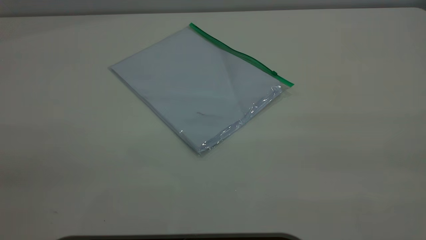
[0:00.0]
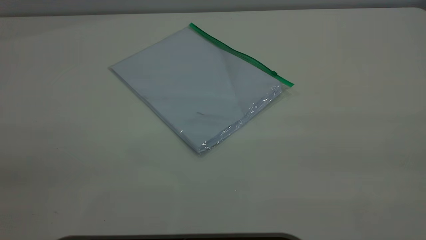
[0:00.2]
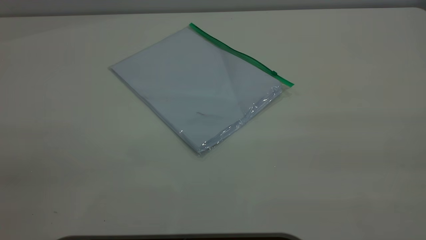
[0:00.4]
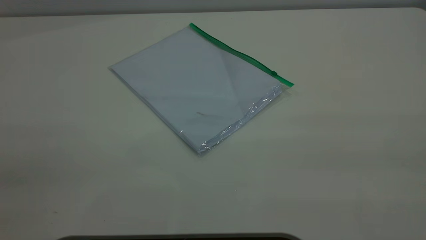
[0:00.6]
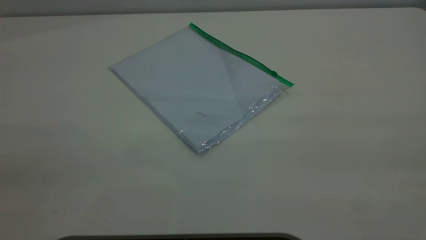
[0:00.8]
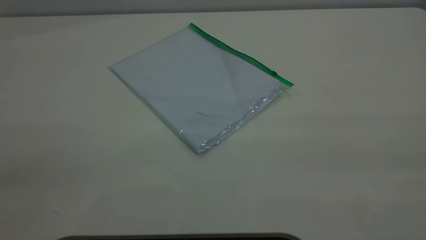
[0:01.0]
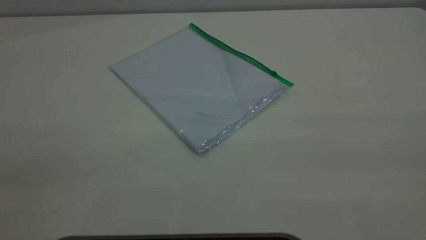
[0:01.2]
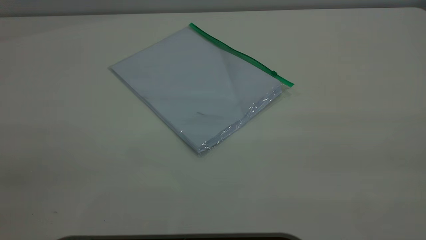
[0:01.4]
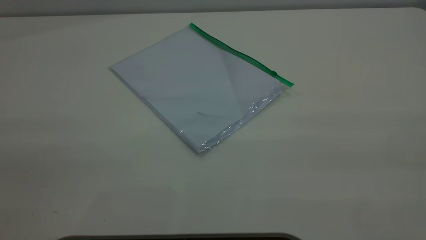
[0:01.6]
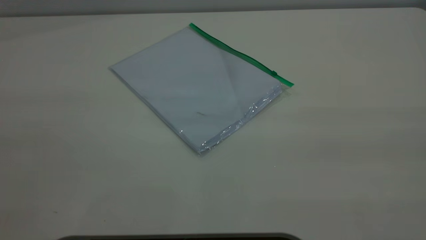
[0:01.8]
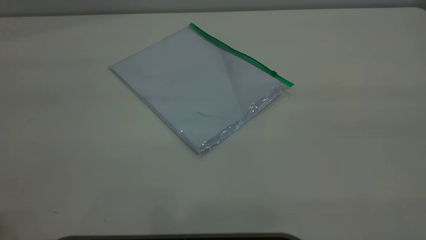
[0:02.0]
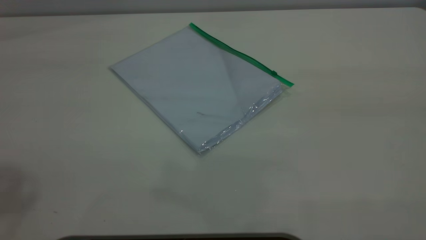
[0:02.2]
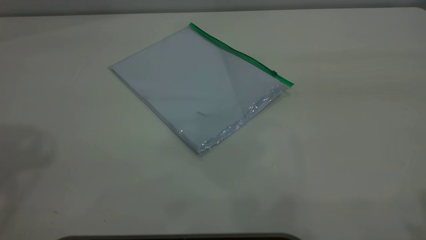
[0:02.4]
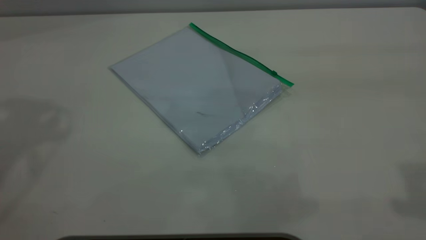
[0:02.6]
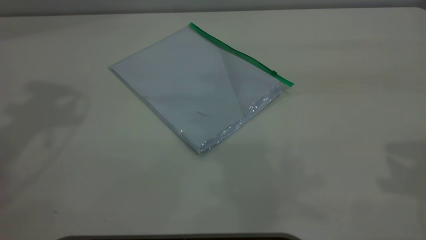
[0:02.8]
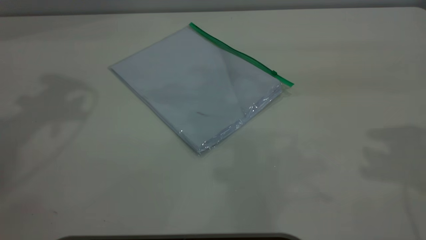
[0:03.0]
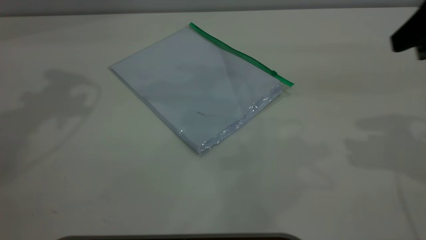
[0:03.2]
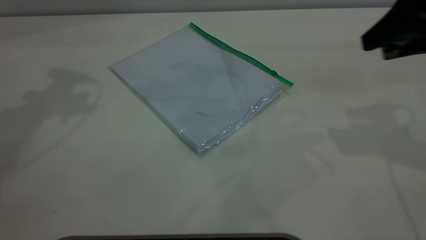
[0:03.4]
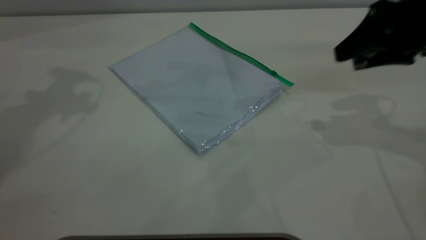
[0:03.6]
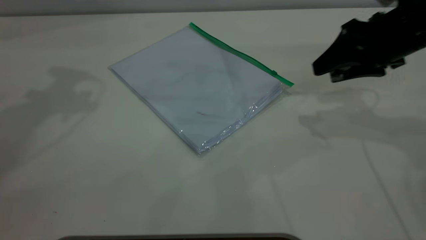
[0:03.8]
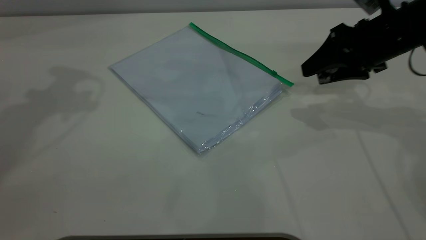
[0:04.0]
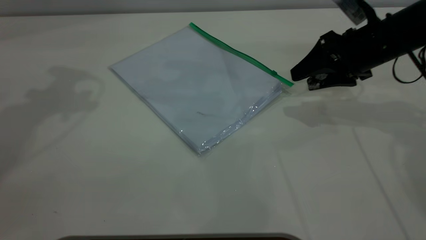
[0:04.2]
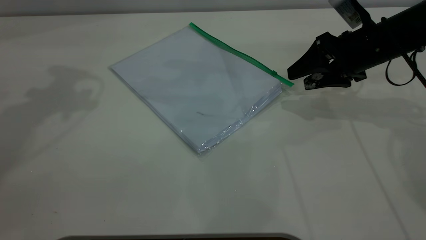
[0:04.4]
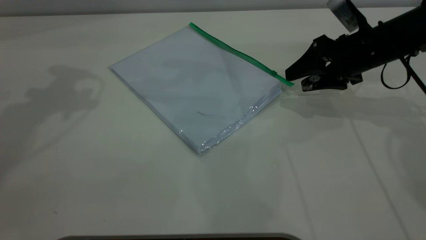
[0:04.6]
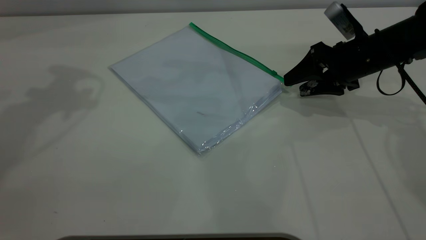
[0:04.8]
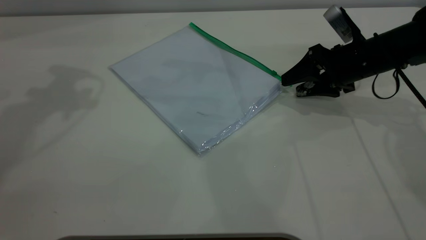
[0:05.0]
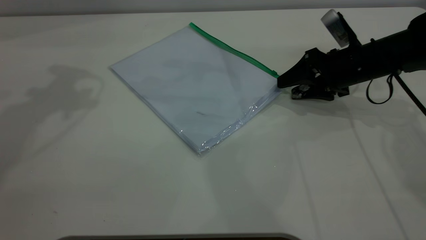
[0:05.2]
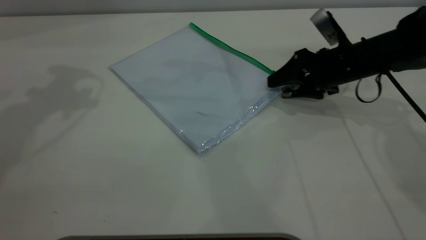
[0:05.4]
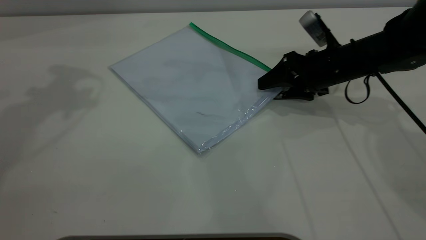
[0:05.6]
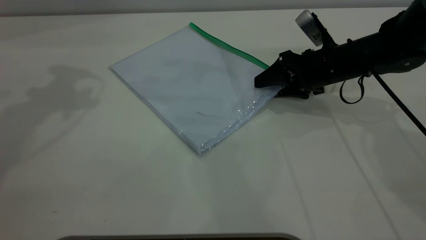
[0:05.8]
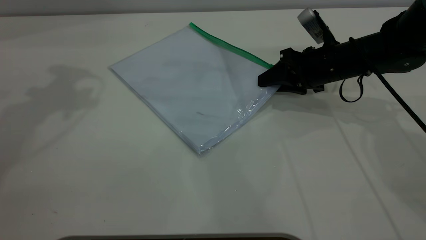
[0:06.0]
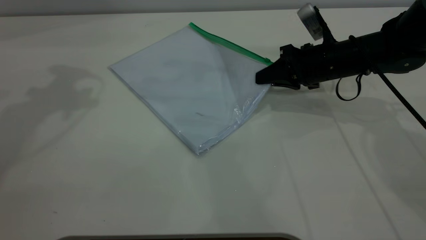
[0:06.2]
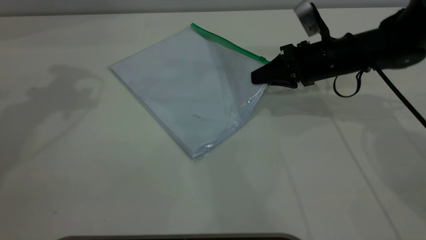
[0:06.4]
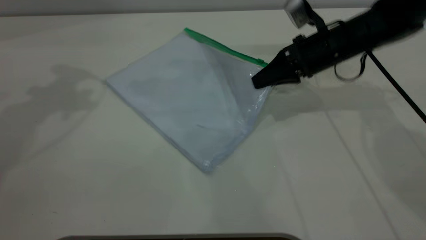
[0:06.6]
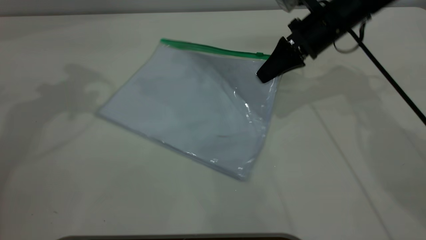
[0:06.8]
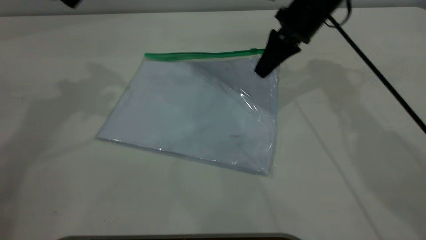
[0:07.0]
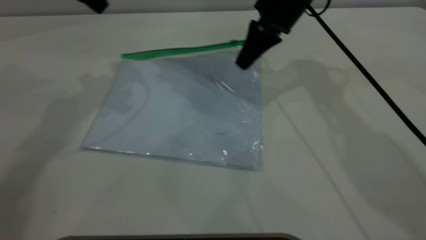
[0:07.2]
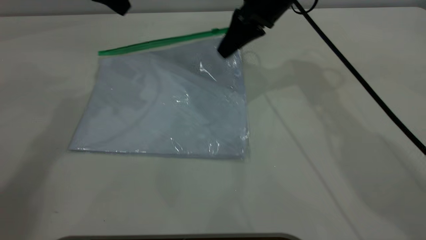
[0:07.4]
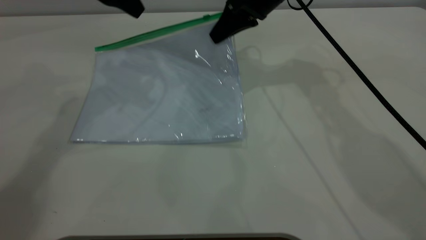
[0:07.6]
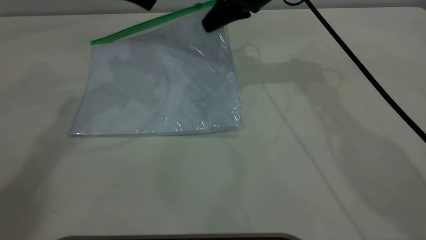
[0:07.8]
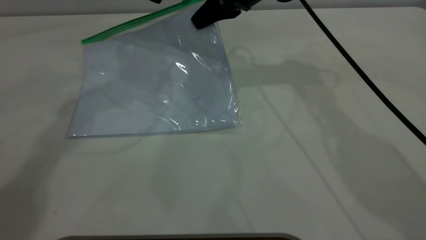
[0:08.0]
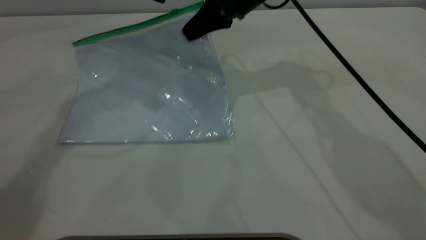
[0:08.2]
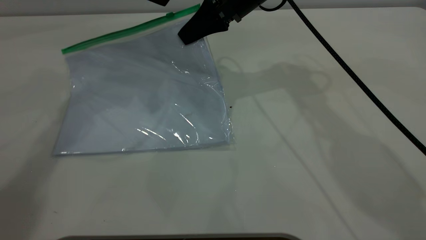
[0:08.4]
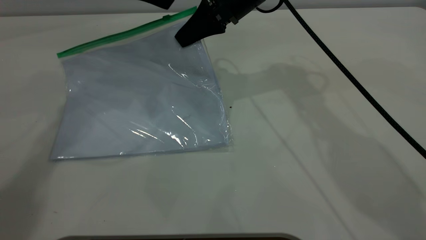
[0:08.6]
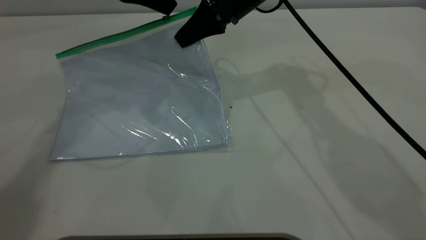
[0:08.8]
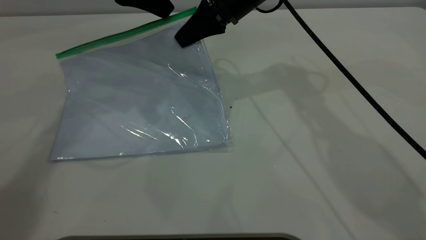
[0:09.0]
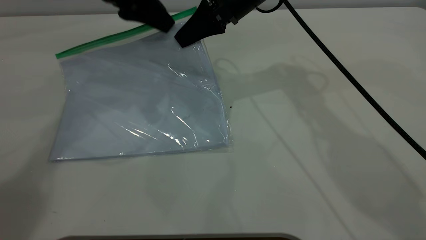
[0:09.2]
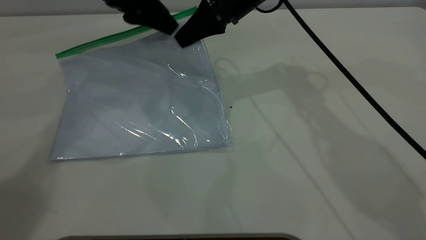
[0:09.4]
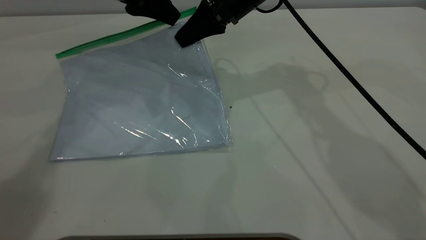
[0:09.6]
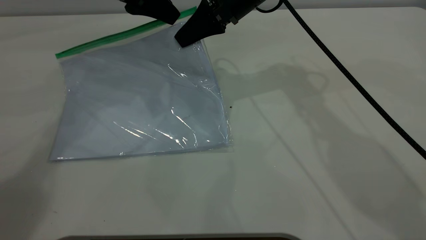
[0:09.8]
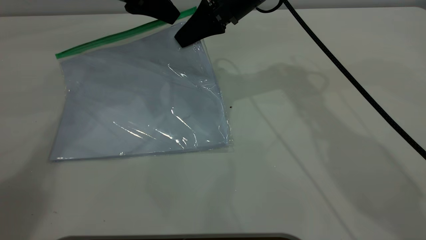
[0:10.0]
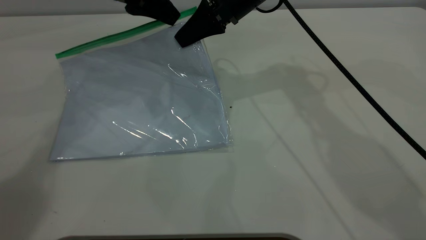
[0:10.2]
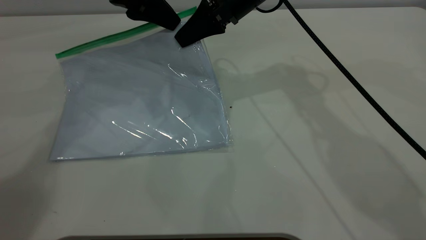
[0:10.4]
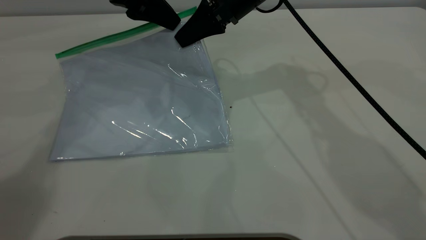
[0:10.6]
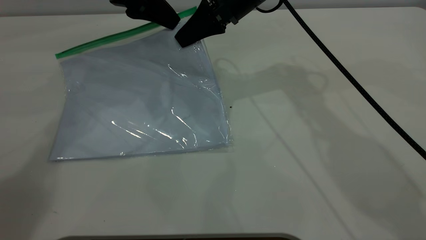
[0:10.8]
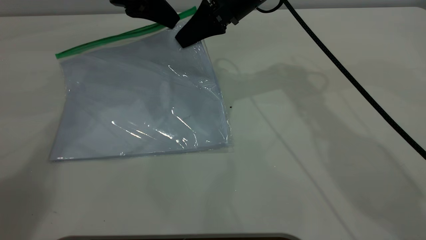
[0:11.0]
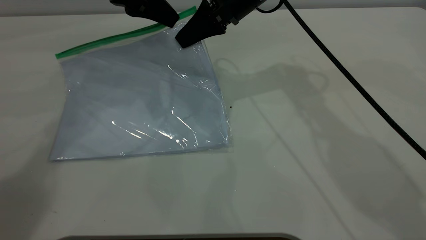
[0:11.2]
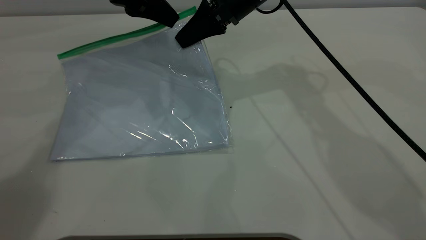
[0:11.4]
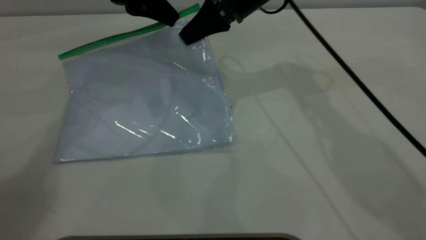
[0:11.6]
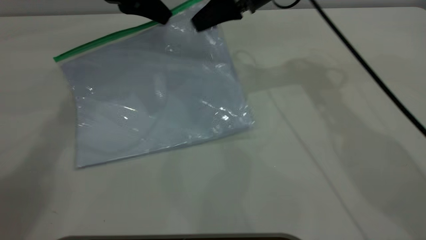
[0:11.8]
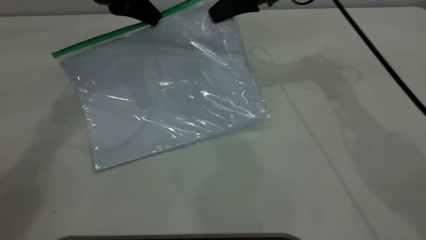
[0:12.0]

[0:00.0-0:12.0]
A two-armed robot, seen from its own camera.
Step, 0:00.0 to 0:06.4: Pick up the transparent plastic bag with the right gripper.
0:03.0 to 0:04.4: The right gripper travels downward and forward by approximately 25 cm.
0:04.4 to 0:06.0: The right gripper ends up some 5 cm from where it was, and closes up.
0:06.0 to 0:07.6: The right gripper travels upward, to the left and forward by about 15 cm. Meanwhile the left gripper is displaced to the right and downward by some 10 cm.
0:07.6 to 0:09.0: The right gripper shifts by approximately 5 cm.
0:10.4 to 0:12.0: The right gripper goes some 10 cm to the right; the left gripper closes its fingers.

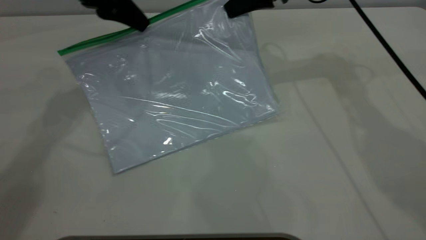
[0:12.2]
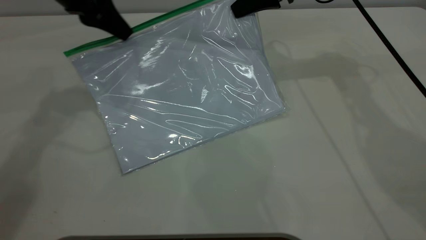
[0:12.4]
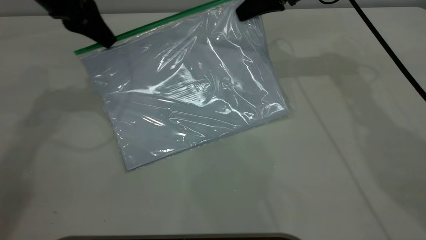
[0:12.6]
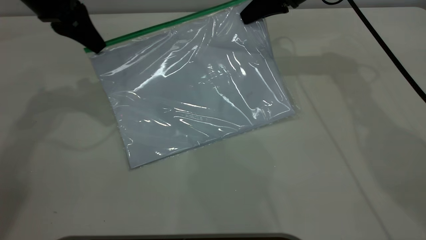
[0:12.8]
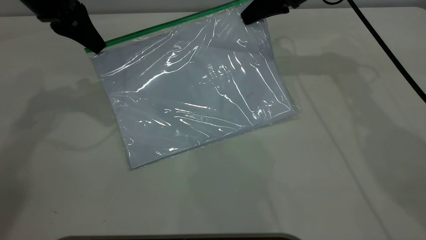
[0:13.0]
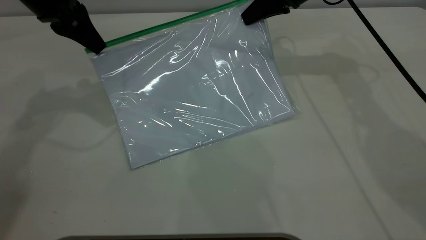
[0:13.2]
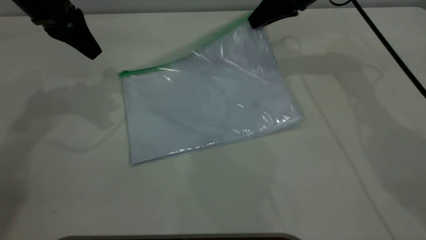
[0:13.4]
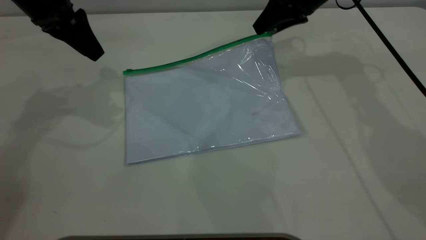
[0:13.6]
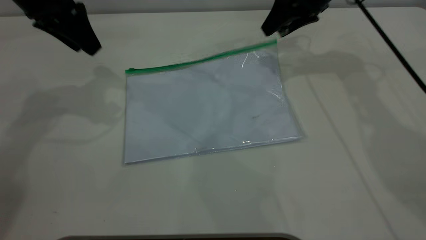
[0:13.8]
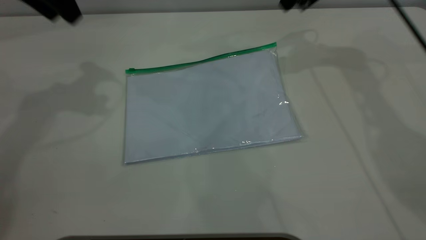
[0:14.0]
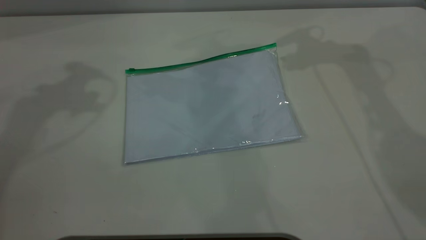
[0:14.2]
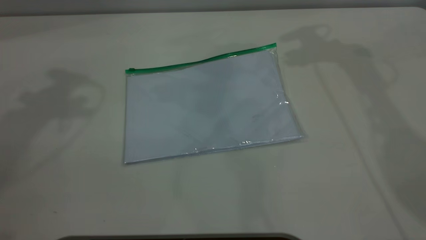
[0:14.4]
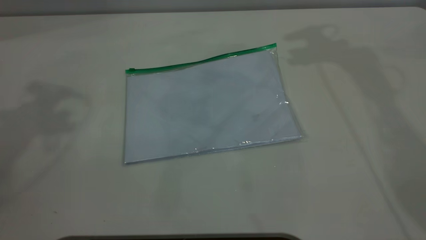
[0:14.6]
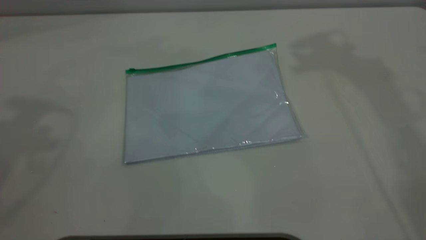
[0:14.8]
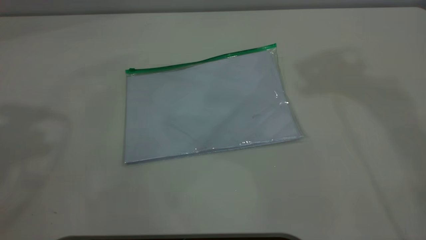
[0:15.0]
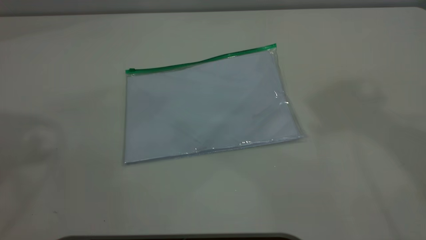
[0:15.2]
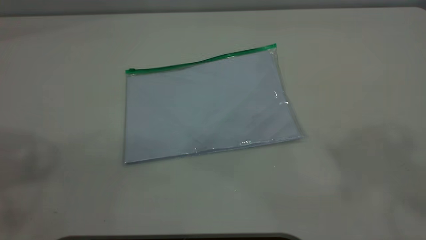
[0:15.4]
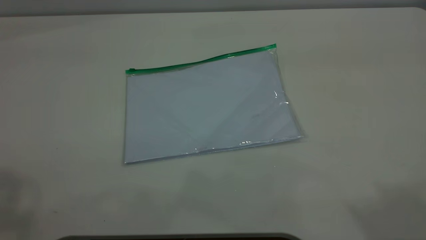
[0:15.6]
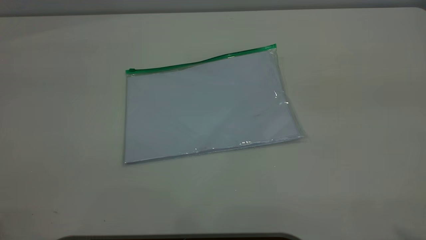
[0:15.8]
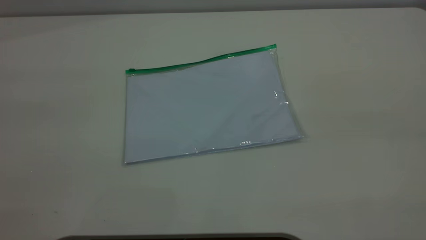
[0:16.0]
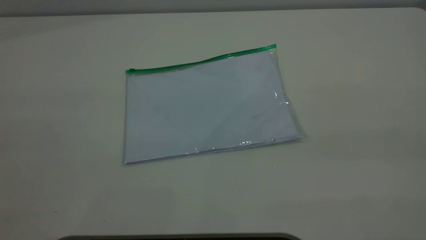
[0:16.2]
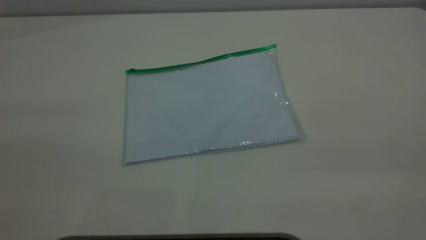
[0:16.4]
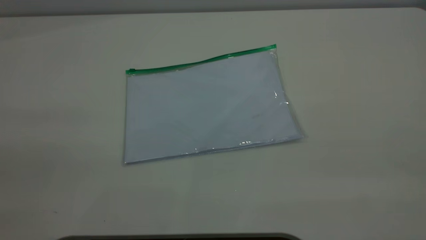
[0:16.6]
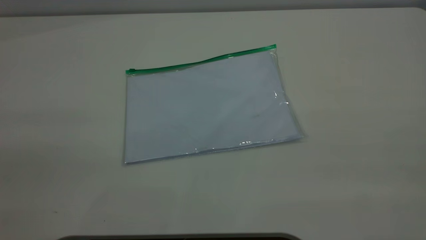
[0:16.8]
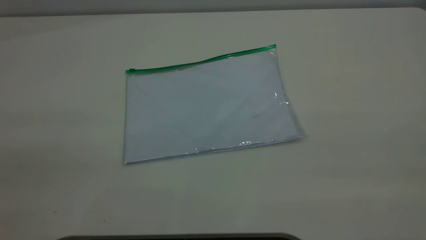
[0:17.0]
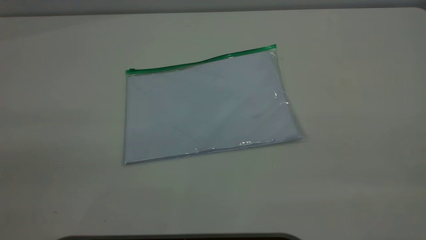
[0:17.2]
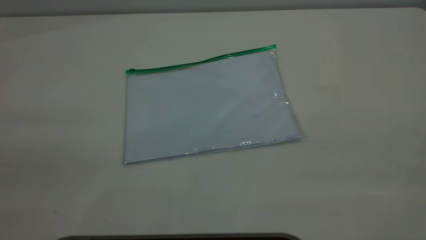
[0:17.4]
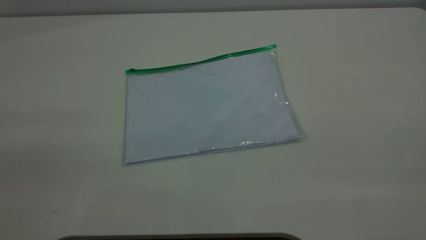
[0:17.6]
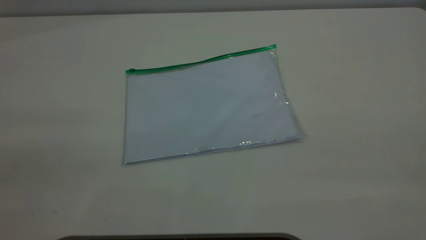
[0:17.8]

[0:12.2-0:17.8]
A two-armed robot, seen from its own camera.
Step, 0:13.4 to 0:13.8: Place the transparent plastic bag.
0:12.2 to 0:13.6: The left gripper opens up; the right gripper opens.
0:13.6 to 0:15.0: The left gripper heads upward and backward, covering some 30 cm, while the right gripper heads upward, covering some 35 cm.
